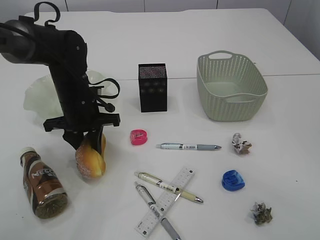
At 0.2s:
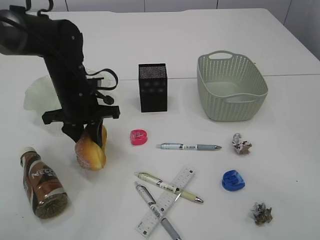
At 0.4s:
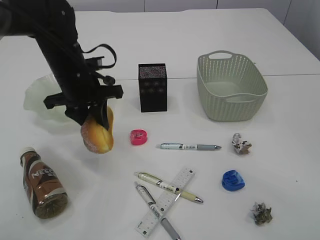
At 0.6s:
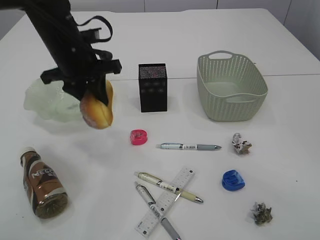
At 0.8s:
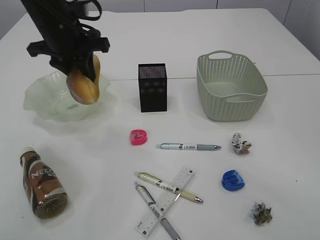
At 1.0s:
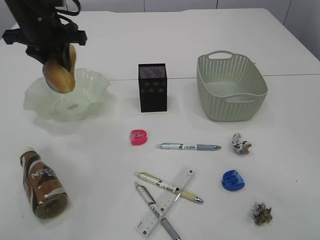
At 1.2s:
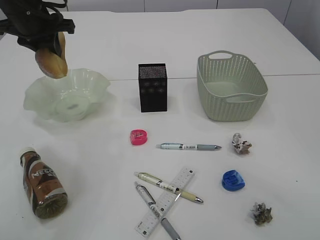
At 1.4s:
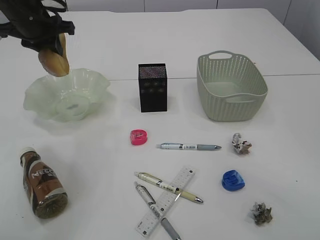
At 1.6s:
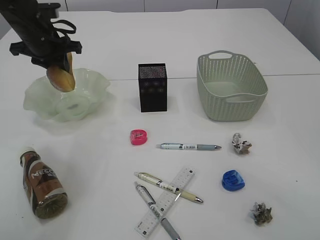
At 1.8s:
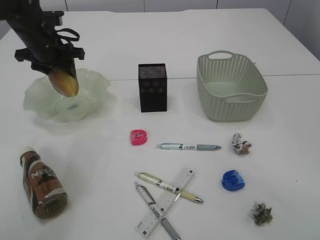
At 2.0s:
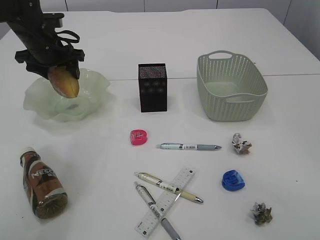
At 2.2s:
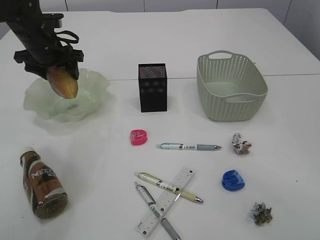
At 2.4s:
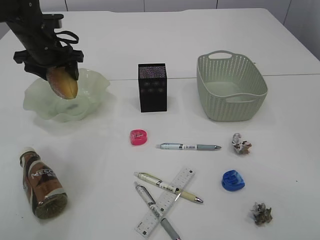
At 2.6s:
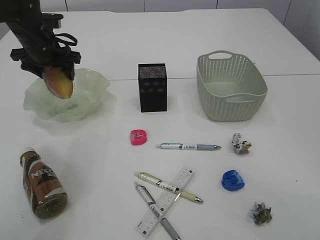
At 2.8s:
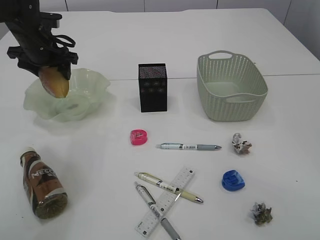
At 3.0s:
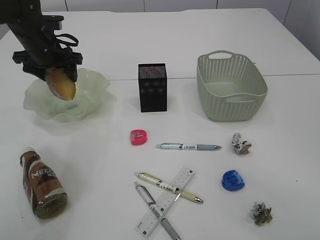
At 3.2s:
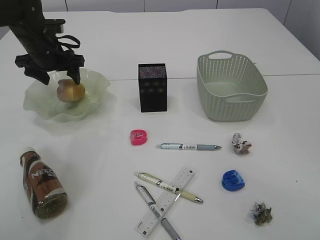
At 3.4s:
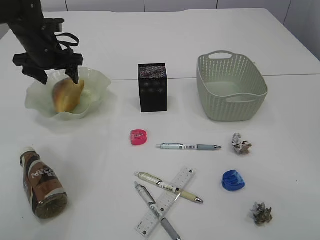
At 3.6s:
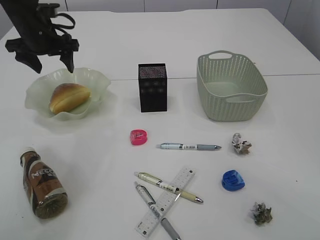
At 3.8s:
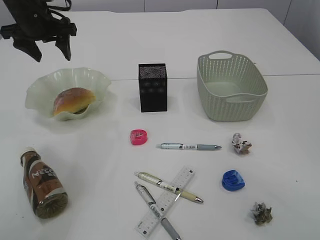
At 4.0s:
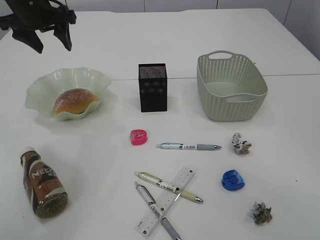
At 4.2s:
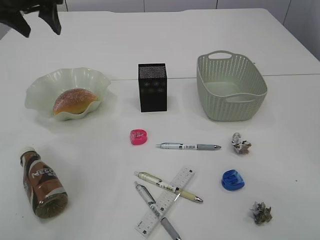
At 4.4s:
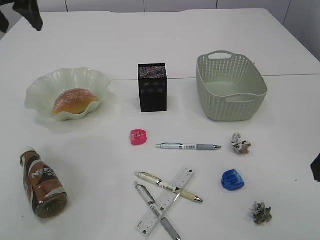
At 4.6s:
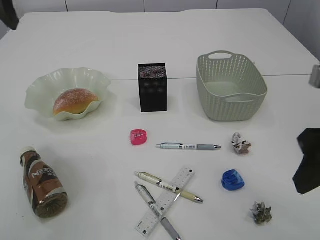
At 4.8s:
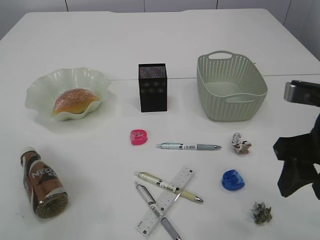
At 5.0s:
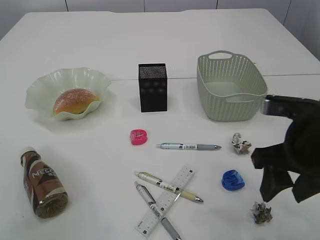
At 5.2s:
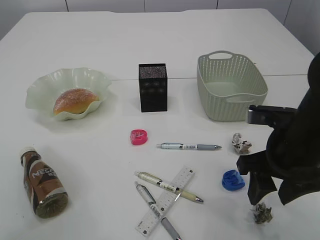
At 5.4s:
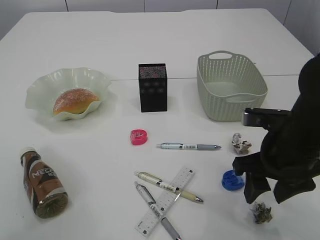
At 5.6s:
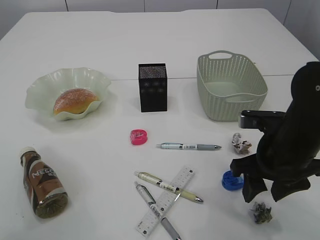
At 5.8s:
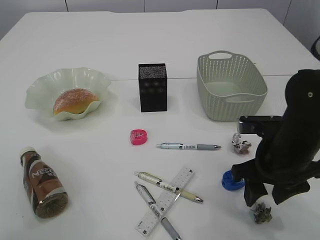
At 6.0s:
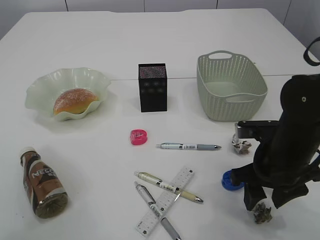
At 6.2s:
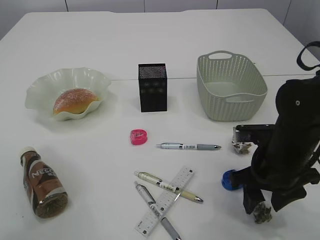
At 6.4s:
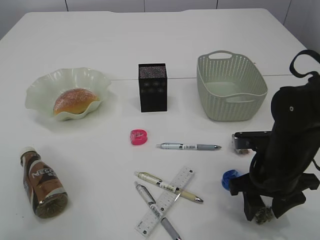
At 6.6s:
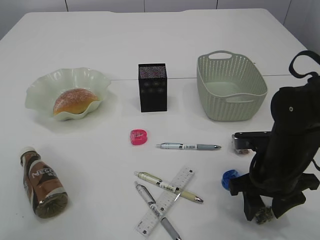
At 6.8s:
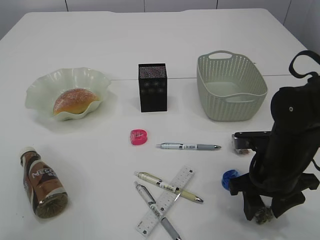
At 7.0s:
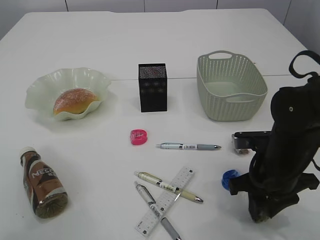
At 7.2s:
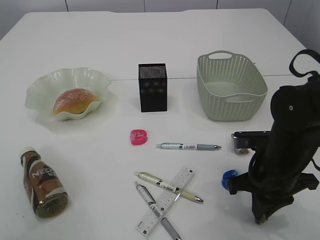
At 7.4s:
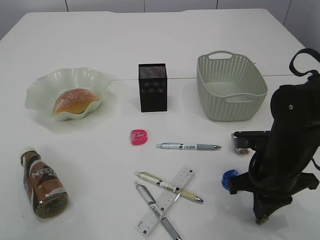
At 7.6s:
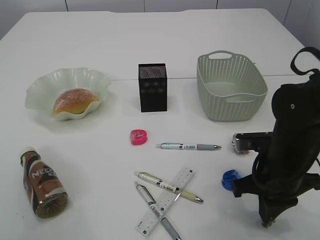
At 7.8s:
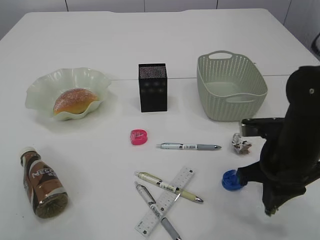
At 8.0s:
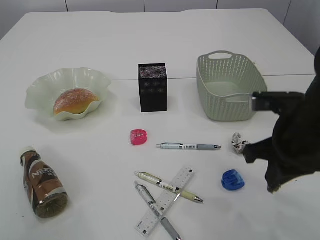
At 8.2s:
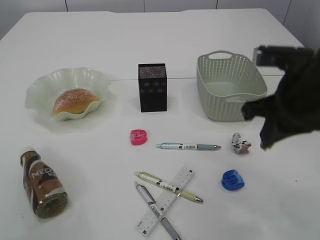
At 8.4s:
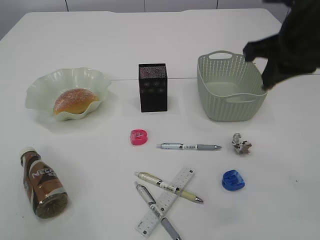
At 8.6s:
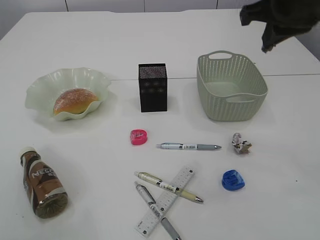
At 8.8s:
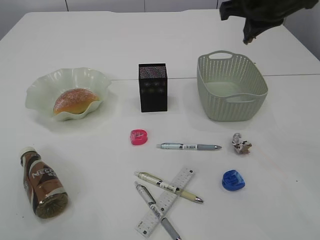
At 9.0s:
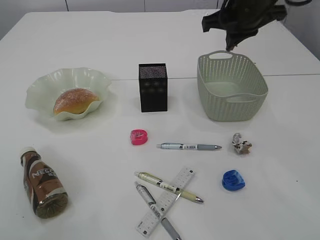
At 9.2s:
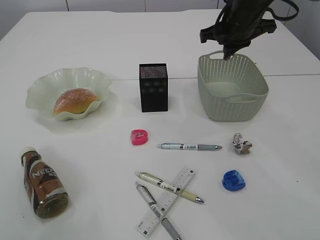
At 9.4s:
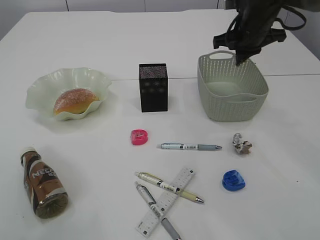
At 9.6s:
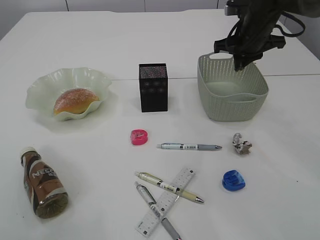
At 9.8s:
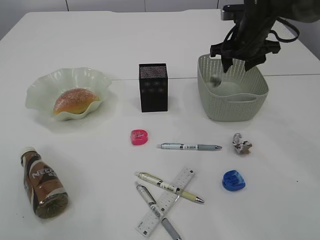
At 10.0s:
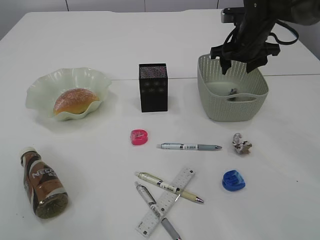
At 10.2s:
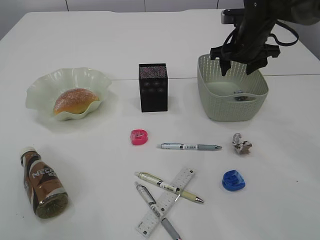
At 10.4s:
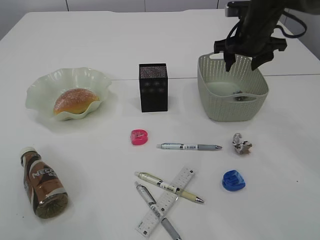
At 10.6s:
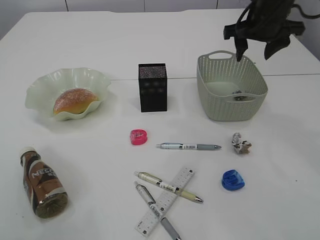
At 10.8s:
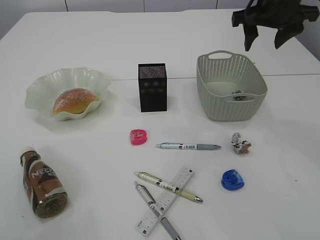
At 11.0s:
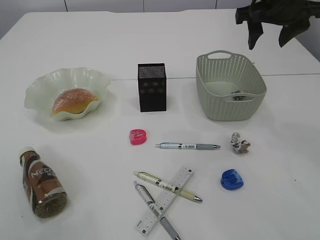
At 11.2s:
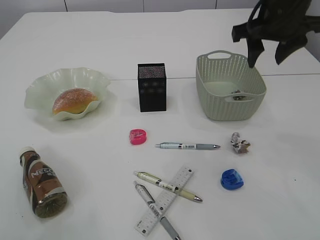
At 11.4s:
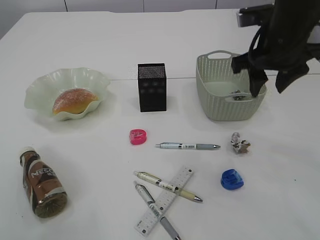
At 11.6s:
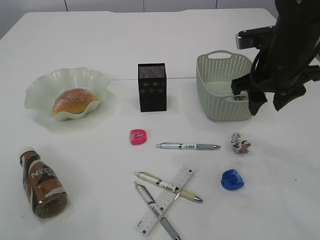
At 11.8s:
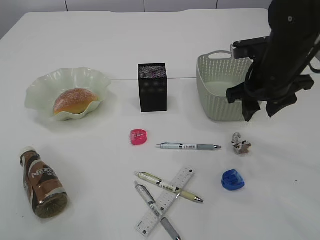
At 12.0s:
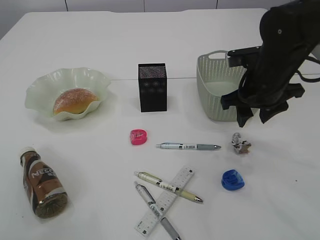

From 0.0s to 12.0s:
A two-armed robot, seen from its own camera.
Step, from 0.6s to 3.8s: place the bread in the plate.
Step, from 4.0s to 8.0s: Pick up the waste paper.
Step, from 8.2s to 10.4s: Place the waste paper in the basket.
From 0.0s to 1.6s: The left gripper goes about 15 cm upward, forward and to the left.
From 1.6s to 3.0s: The left gripper opens.
From 3.0s to 4.4s: The left gripper goes some 20 cm upward and backward.
From 4.4s to 6.0s: The left gripper goes roughly 15 cm backward and upward; the right gripper goes approximately 20 cm downward and forward.
From 6.0s to 7.6s: The right gripper closes up.
From 7.6s to 9.0s: The right gripper is displaced upward and forward by about 25 cm.
From 9.0s to 10.4s: The right gripper heads downward and forward, covering about 10 cm, and opens.
From 10.4s to 12.0s: The right gripper shifts some 10 cm backward.

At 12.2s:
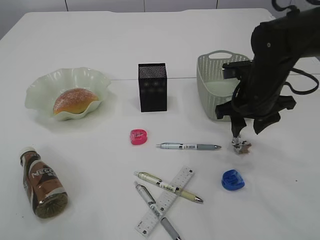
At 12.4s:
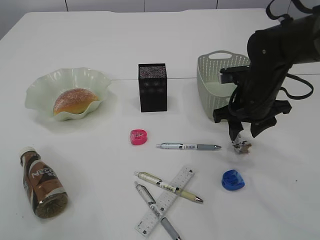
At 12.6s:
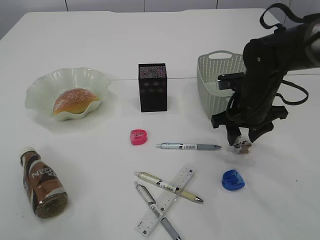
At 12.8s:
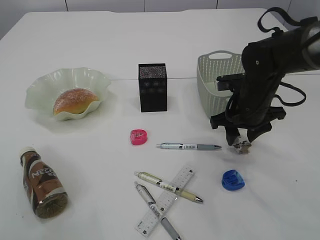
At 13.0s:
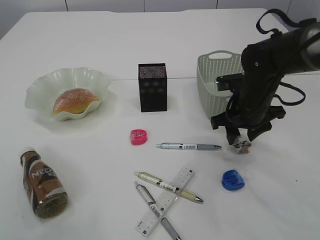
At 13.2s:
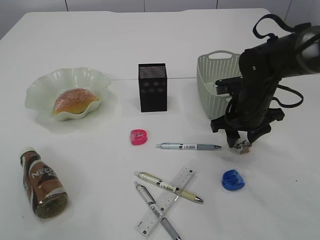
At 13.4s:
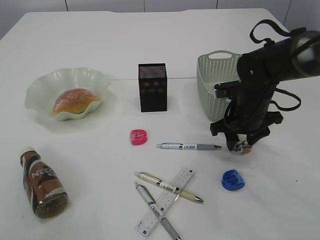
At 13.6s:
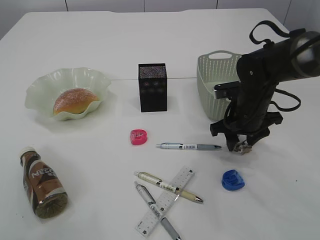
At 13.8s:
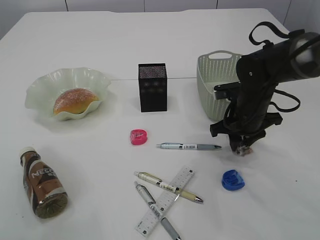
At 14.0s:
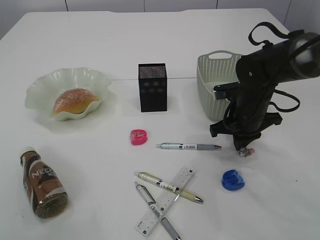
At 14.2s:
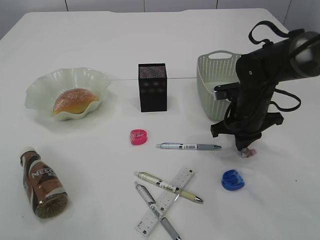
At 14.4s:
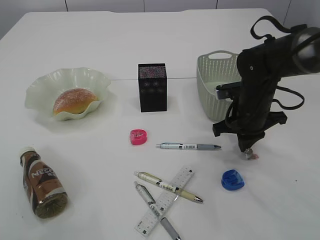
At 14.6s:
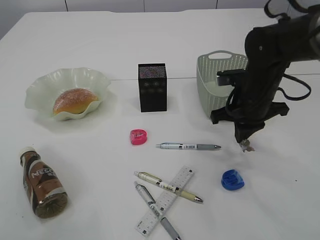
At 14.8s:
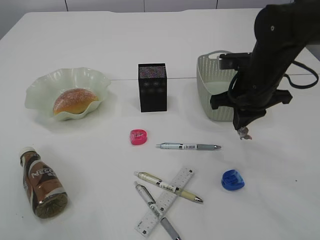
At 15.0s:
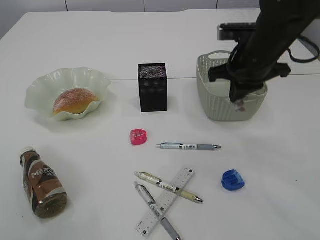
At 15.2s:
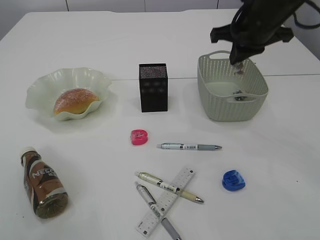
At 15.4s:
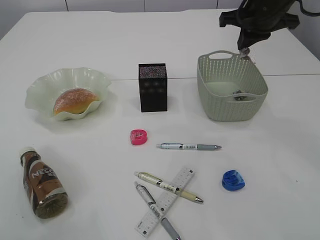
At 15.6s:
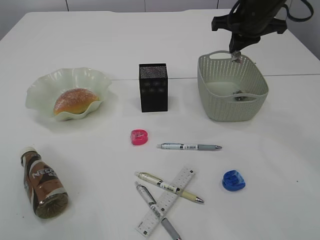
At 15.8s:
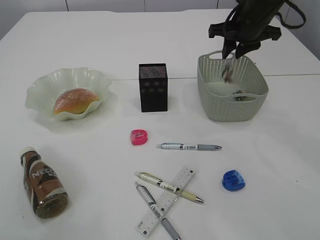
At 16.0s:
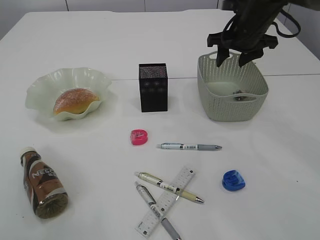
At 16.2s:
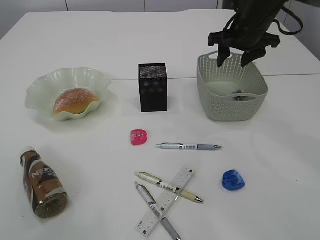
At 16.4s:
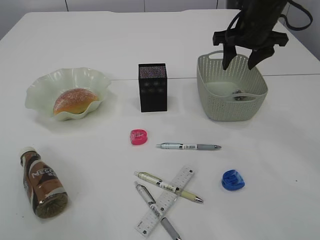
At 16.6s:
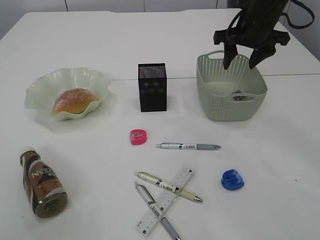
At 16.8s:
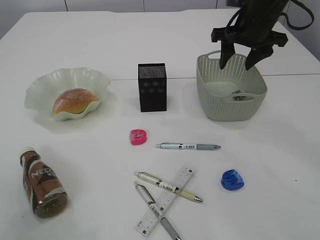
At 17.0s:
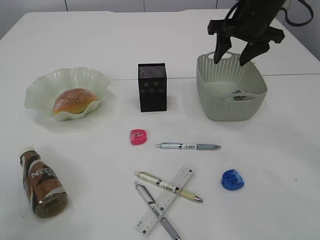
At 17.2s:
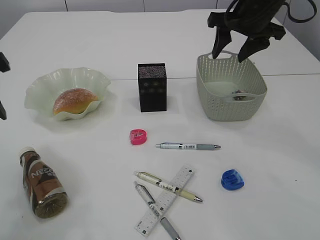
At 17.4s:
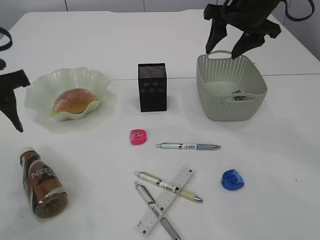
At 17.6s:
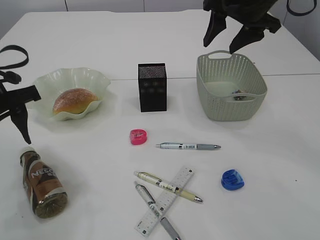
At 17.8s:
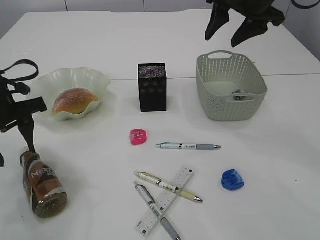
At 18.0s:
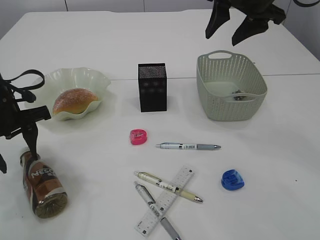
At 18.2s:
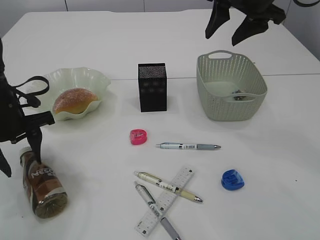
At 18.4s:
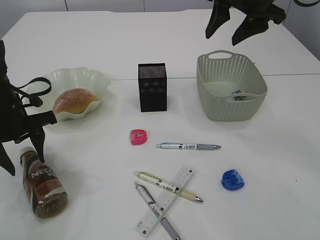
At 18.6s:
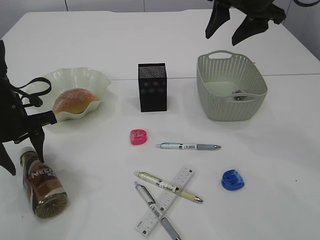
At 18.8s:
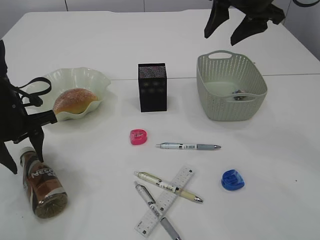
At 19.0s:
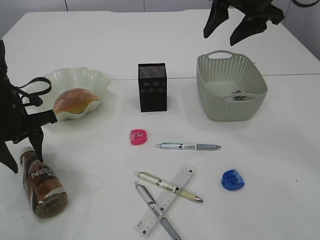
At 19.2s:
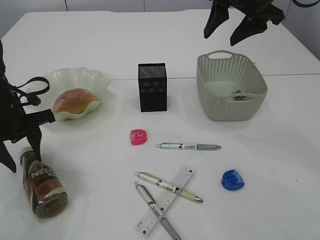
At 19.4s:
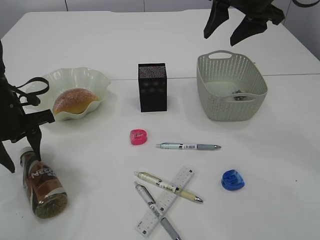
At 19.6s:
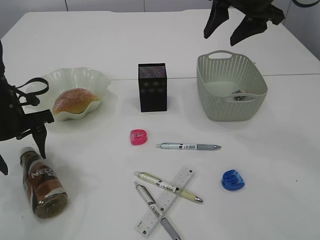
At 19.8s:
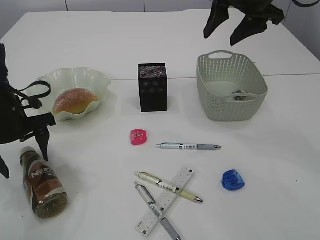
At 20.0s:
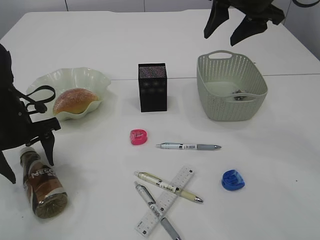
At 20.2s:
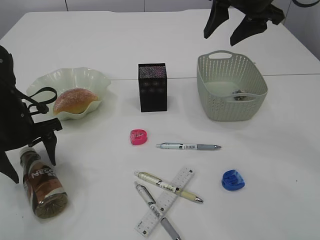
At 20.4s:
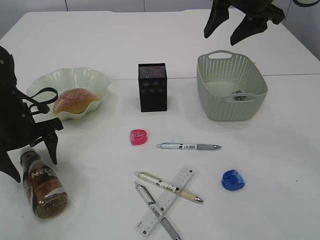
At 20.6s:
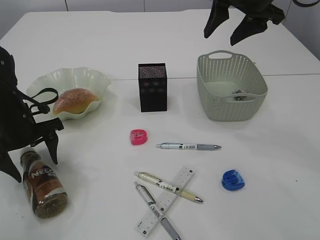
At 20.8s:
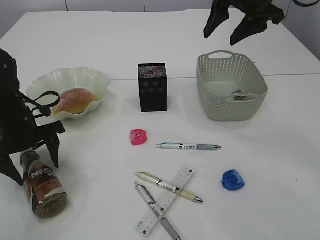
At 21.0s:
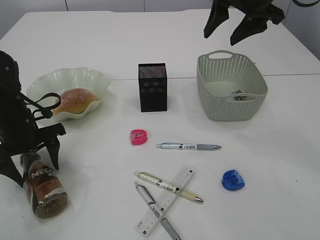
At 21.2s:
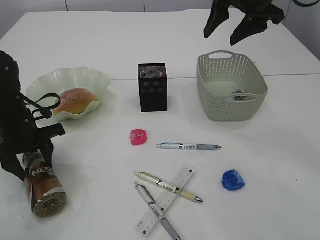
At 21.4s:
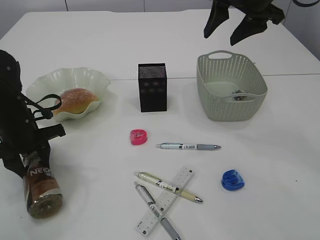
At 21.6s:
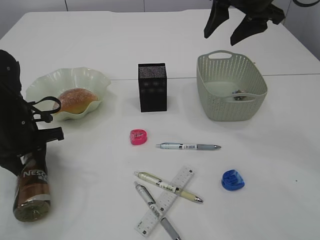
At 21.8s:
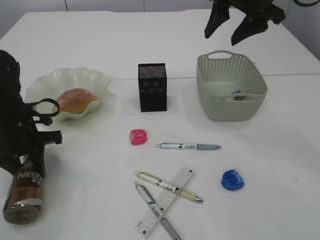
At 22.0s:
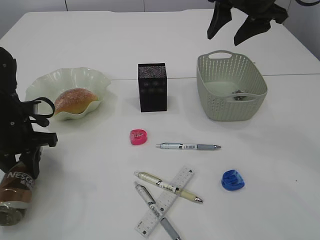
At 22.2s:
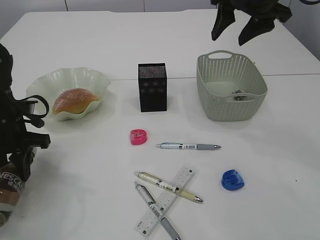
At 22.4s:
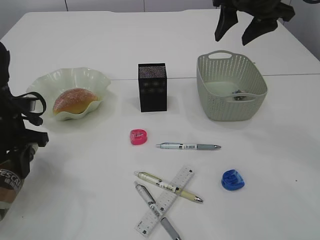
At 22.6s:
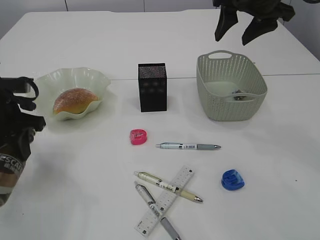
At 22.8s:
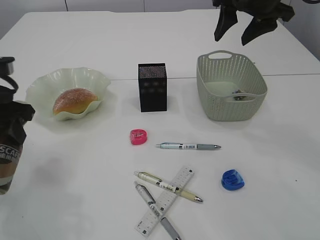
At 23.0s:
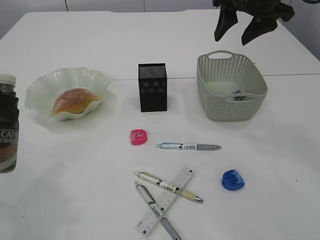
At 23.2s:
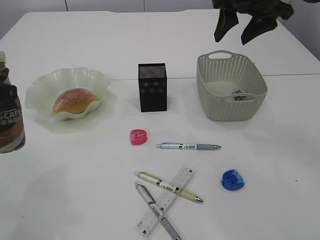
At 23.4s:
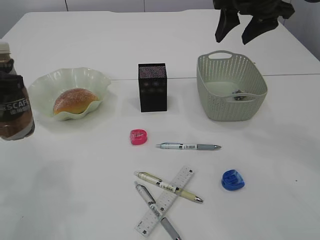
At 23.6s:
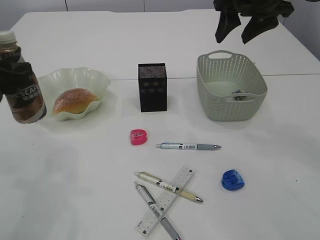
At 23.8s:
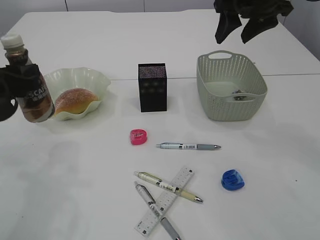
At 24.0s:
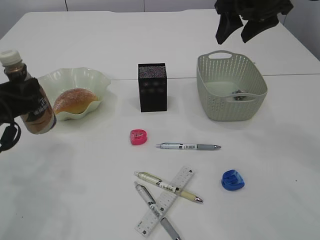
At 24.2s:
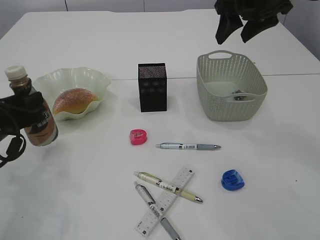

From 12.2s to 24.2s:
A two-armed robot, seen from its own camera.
Step, from 12.2s to 14.6s: Pick up the waste paper.
Step, from 14.8s to 16.8s: Place the waste paper in the basket.
Step, from 17.0s to 22.6s: transfer the bottle to the left arm.
From 12.2s to 13.8s: The right gripper heads downward, covering about 5 cm.
From 13.8s to 15.2s: The right gripper travels upward by about 15 cm, and closes up.
From 15.2s to 16.6s: The right gripper shifts some 5 cm forward, and opens up.
From 16.6s to 18.2s: The right gripper travels upward by roughly 5 cm; the left gripper goes roughly 25 cm downward.
From 18.2s to 19.8s: The left gripper opens its fingers.
From 19.8s to 21.2s: The left gripper closes its fingers.
From 21.2s to 22.6s: The left gripper goes approximately 5 cm upward.
From 22.6s to 24.2s: The left gripper travels upward and back again, about 5 cm each way.
